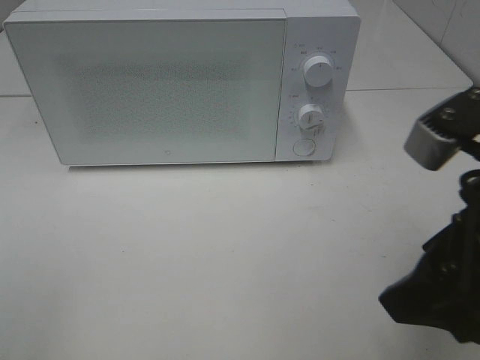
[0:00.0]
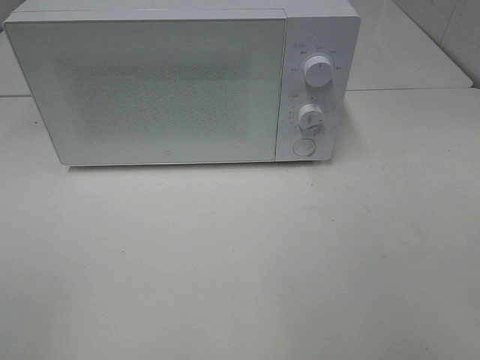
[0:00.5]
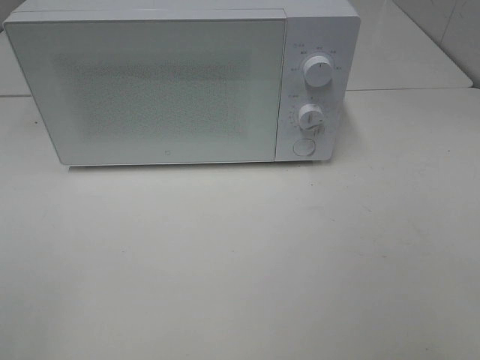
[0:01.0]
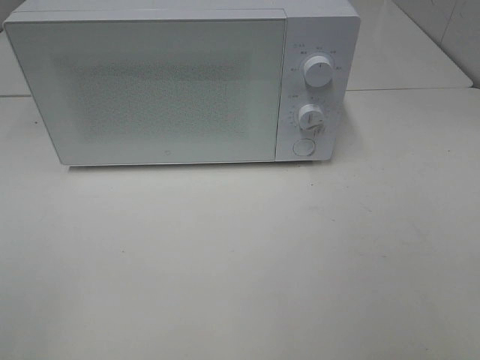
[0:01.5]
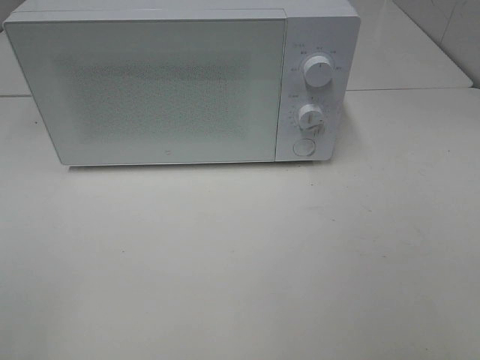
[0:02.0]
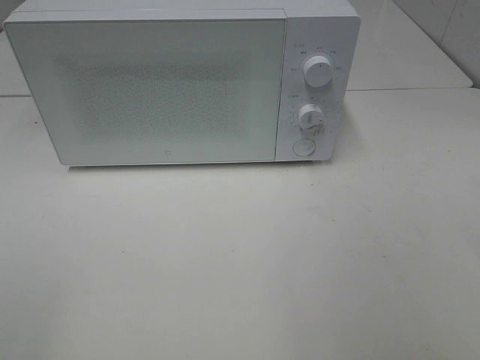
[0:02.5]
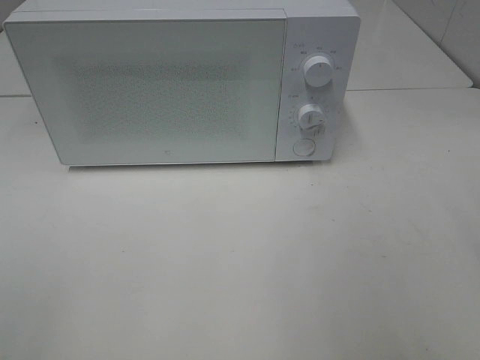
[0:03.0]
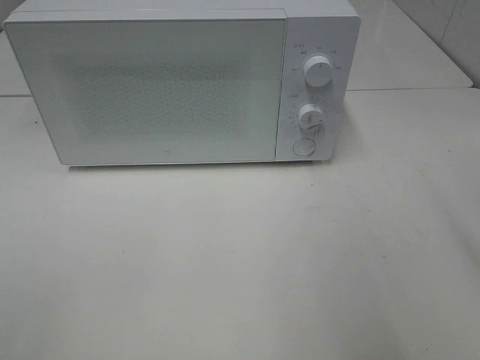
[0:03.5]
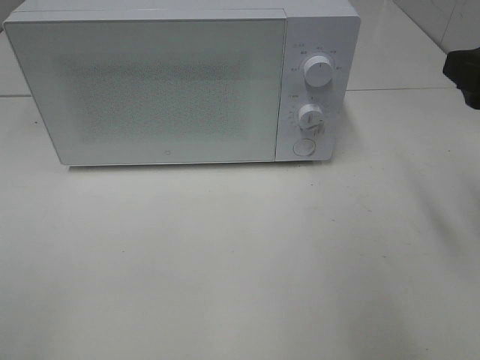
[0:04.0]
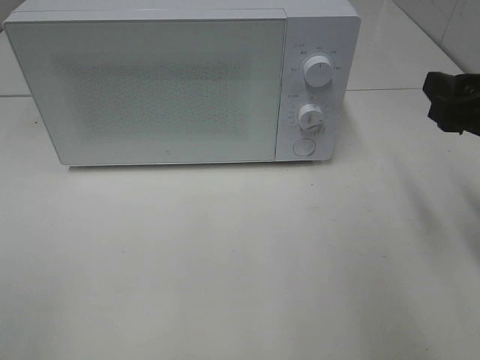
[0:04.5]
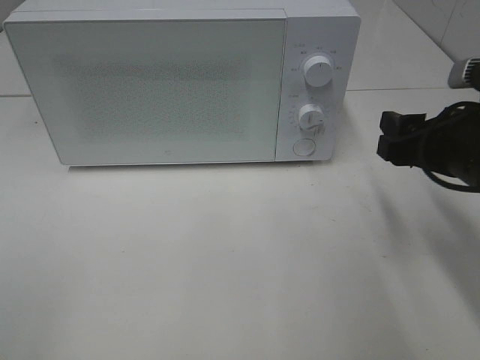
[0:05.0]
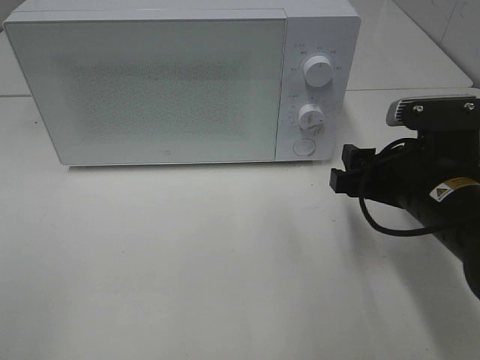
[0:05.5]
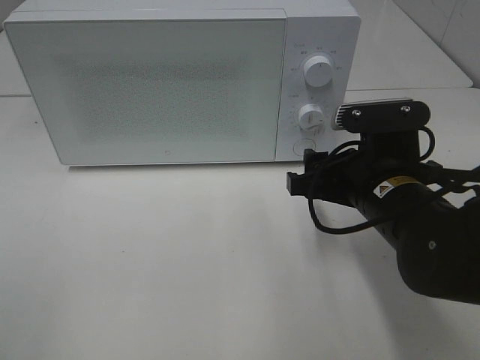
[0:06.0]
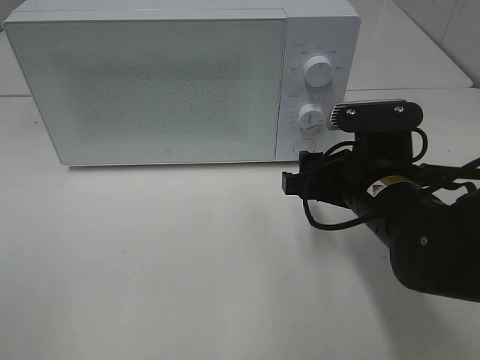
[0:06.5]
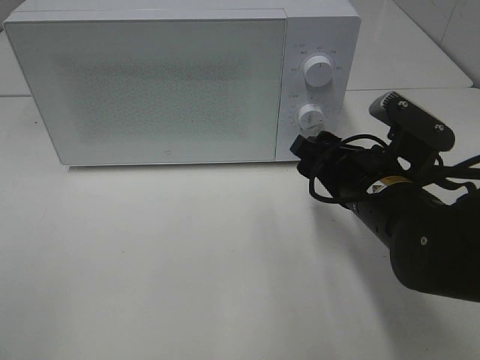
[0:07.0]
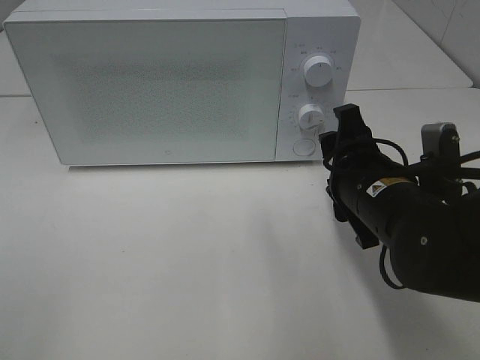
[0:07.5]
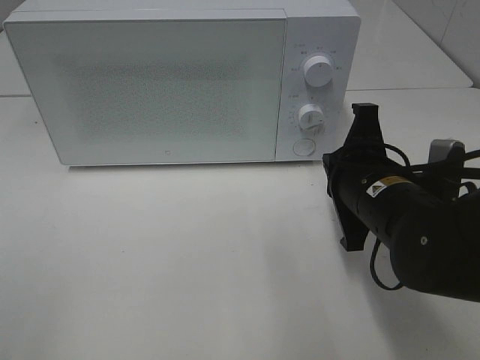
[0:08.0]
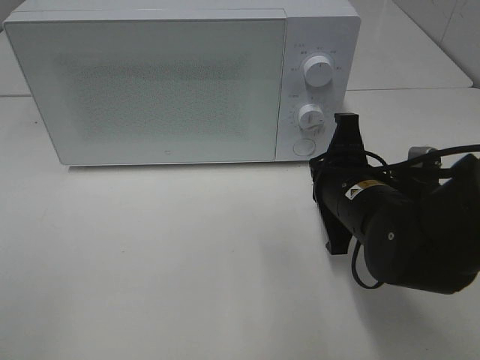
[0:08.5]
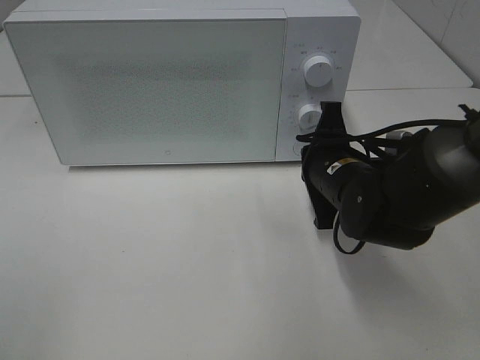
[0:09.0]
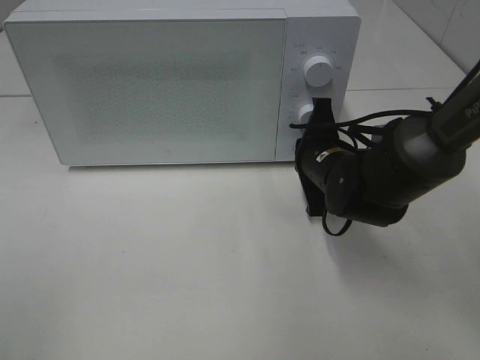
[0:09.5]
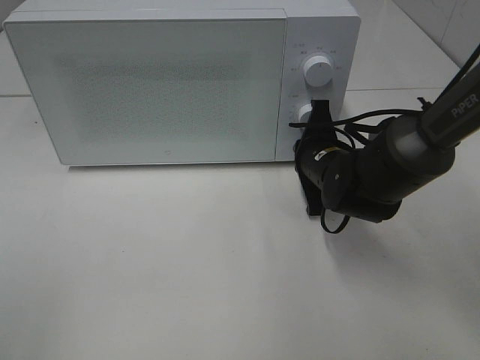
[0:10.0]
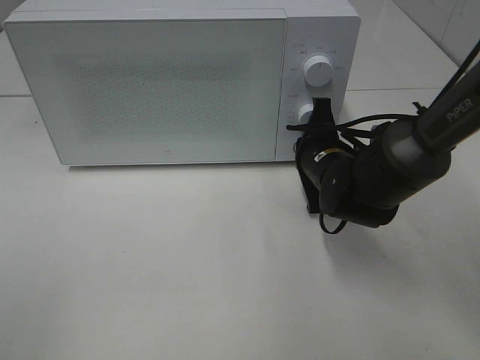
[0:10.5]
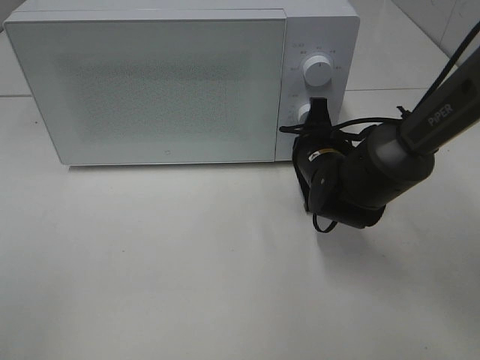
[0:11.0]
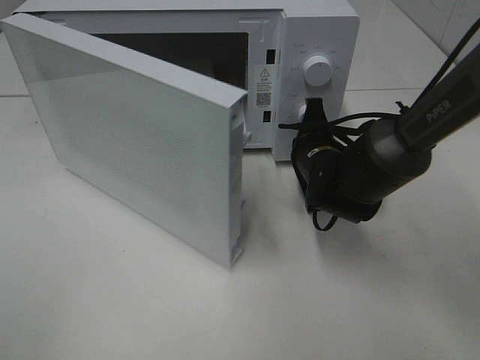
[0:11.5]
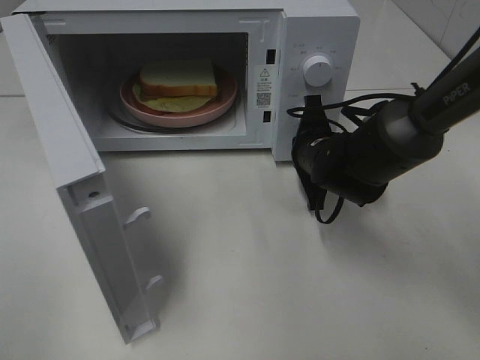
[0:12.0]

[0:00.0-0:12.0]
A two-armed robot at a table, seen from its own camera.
Task of the whole recording: Heat Sandwich.
0:00.0 to 0:02.0: The right gripper goes some 15 cm backward and to the right.
0:02.0 to 0:04.0: The right gripper shifts about 20 cm forward.
0:04.0 to 0:06.0: The right gripper heads downward and to the left, covering some 15 cm.
0:06.0 to 0:08.0: The right gripper closes.
0:08.0 to 0:10.0: The right gripper moves forward and downward, approximately 10 cm.

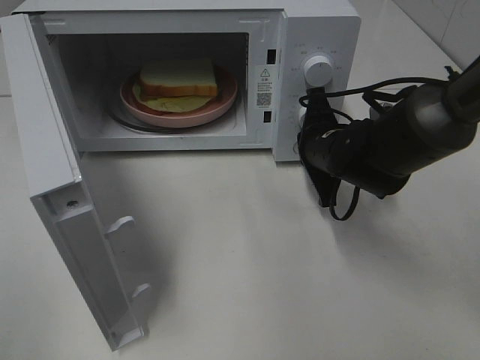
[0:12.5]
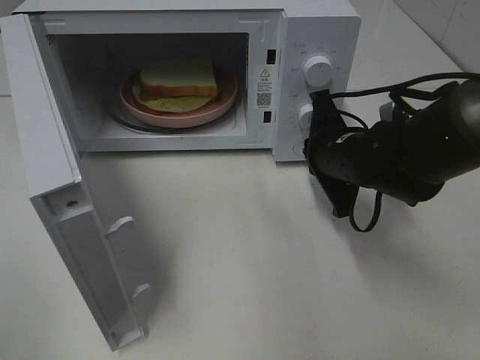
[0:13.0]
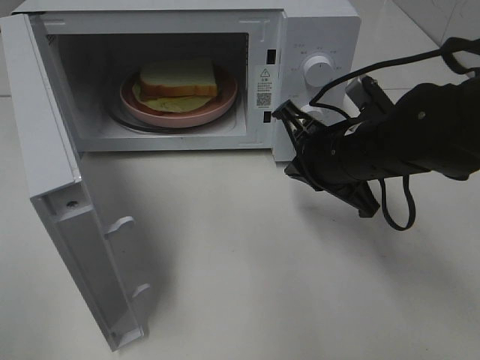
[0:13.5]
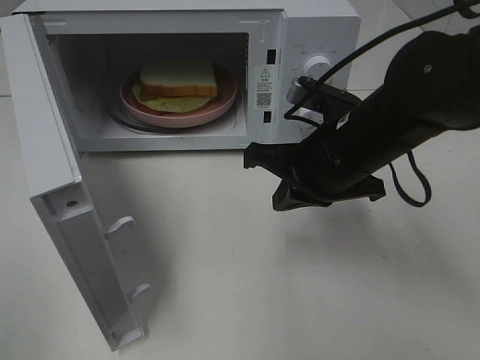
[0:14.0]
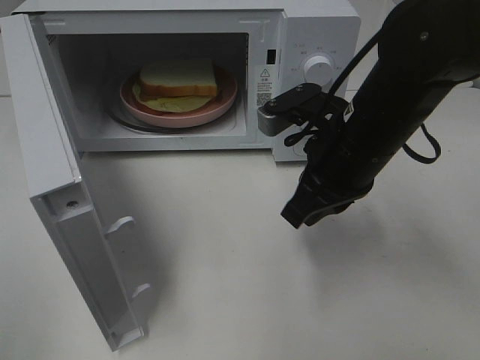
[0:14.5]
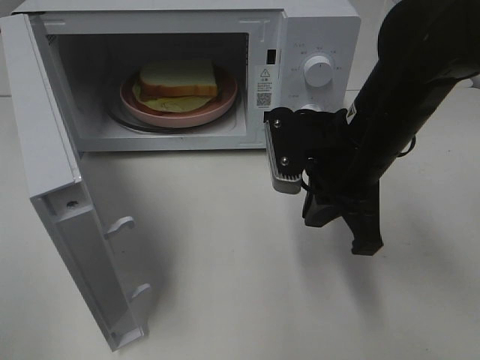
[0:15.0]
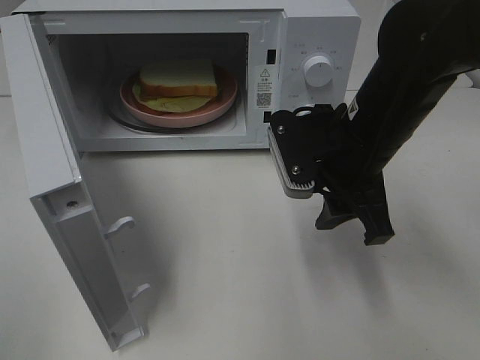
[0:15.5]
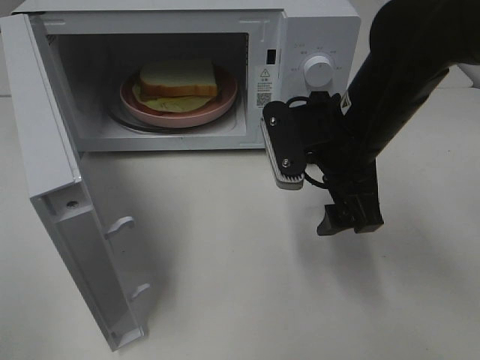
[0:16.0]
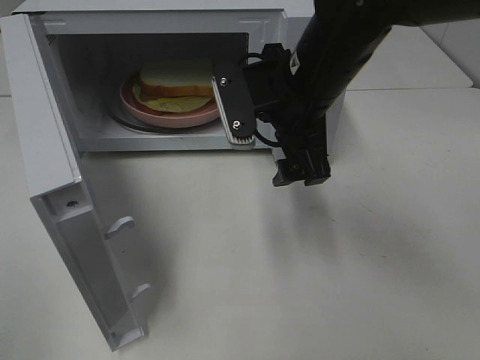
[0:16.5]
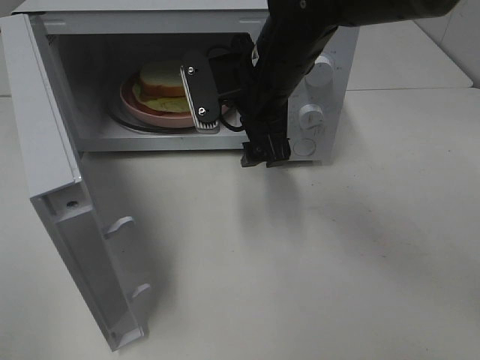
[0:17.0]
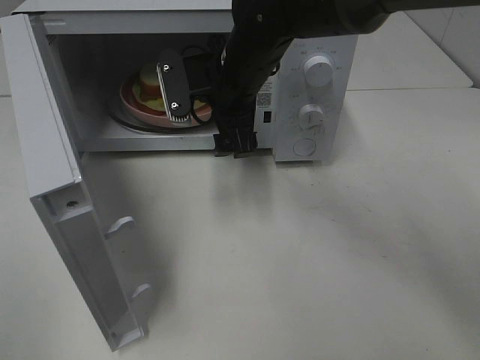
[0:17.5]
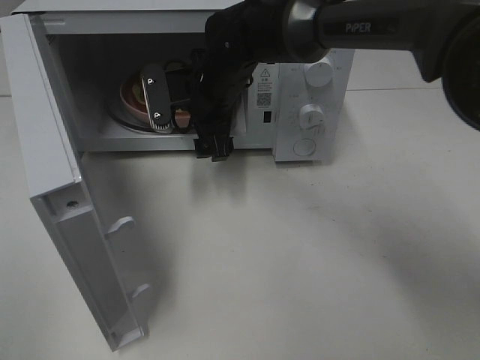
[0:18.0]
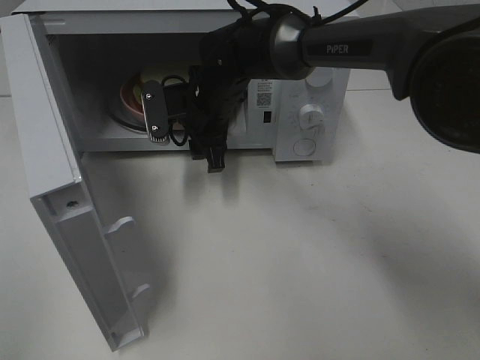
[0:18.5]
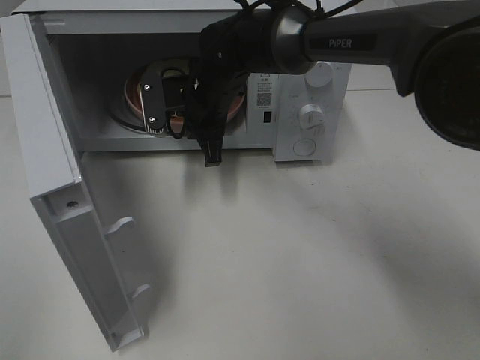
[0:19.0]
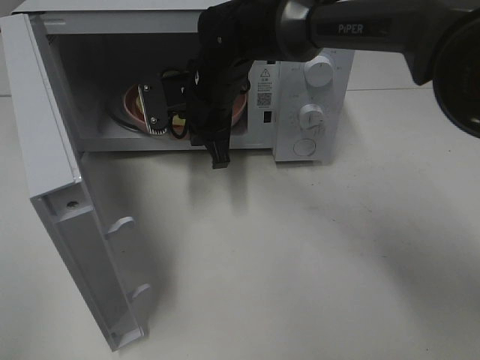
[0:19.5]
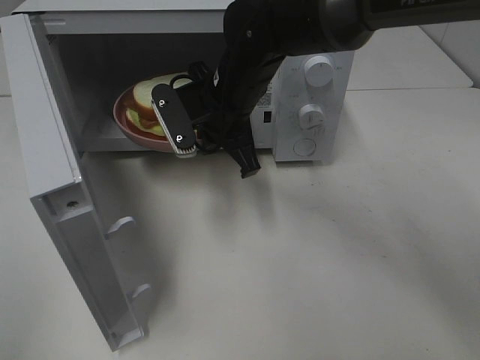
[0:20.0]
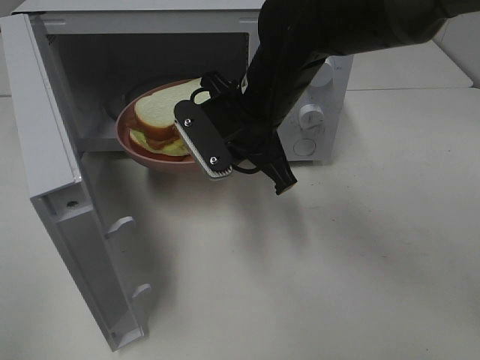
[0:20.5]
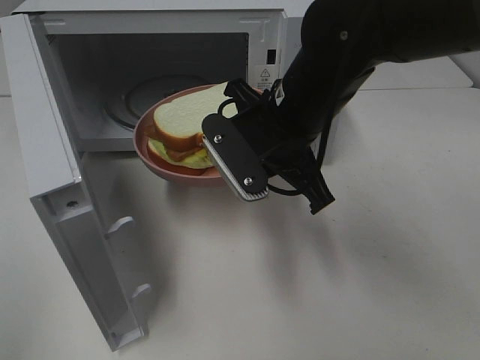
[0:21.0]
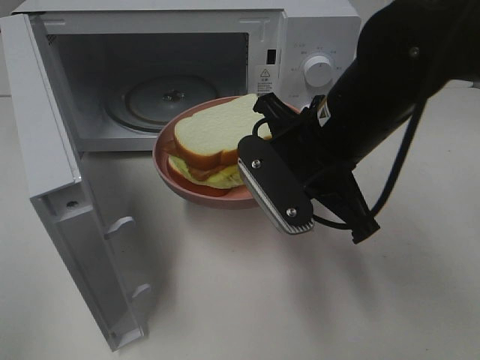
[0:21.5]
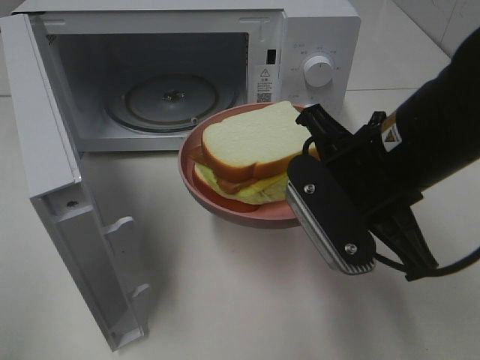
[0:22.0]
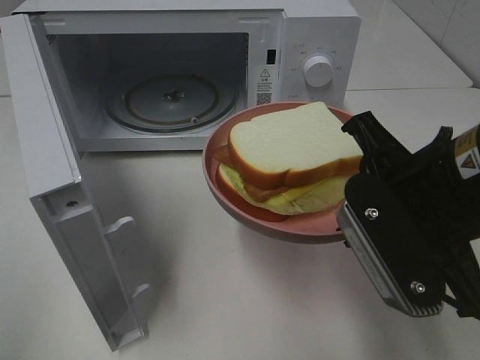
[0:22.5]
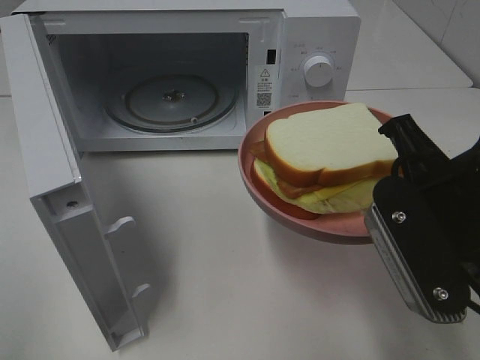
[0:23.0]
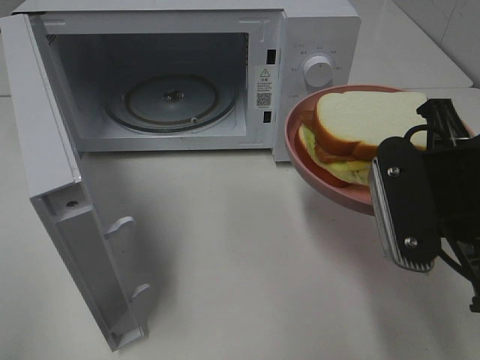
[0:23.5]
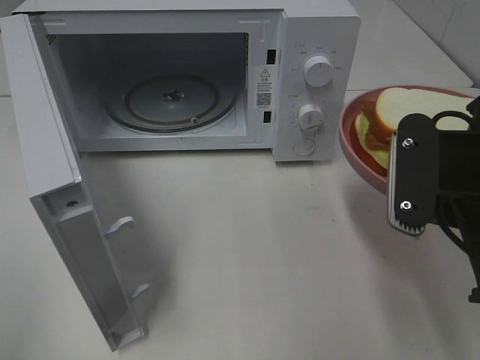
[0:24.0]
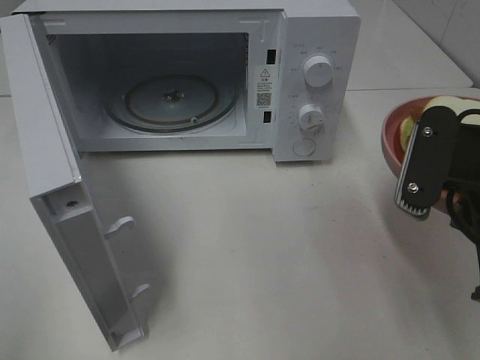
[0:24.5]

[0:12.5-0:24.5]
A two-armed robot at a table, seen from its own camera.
Task of the whole recording: Heat Sandwich.
Step, 0:13.0 to 0:18.5: Right hand: grab the plate with the sandwich.
0:12.5 to 0:14.5: The right gripper goes some 10 cm upward and backward.
0:14.5 to 0:16.5: The right gripper goes some 5 cm to the left, and opens its fingers.
0:16.5 to 0:18.5: The right gripper moves forward, to the left and downward, about 15 cm, and closes.
0:18.5 to 0:20.5: The right gripper shifts some 15 cm backward, to the right and upward, and closes its fingers.
0:20.5 to 0:22.5: The right gripper travels backward and to the right by about 20 cm.

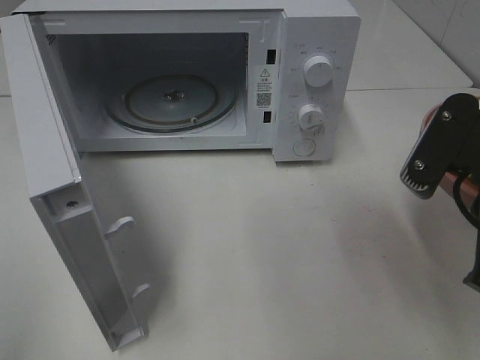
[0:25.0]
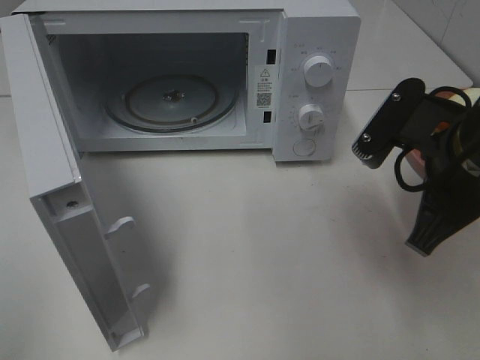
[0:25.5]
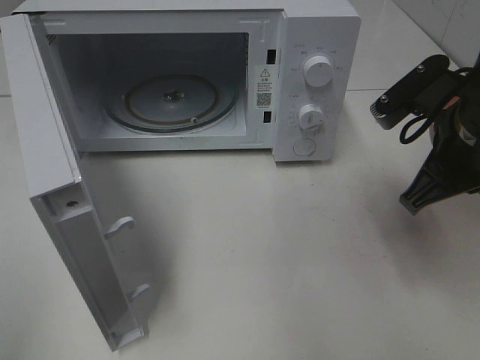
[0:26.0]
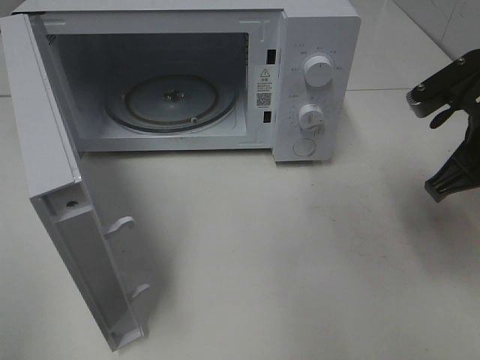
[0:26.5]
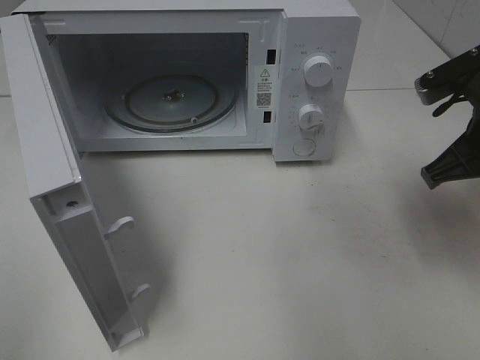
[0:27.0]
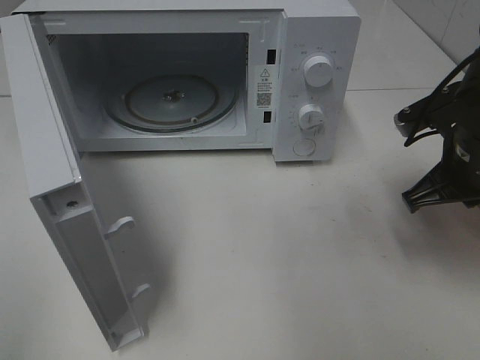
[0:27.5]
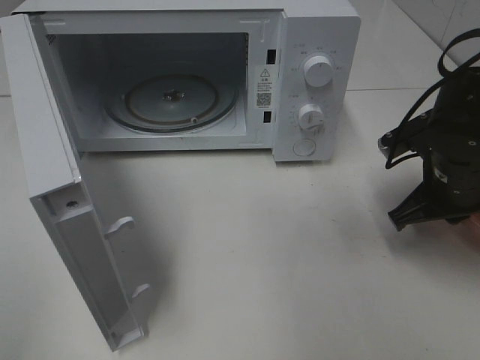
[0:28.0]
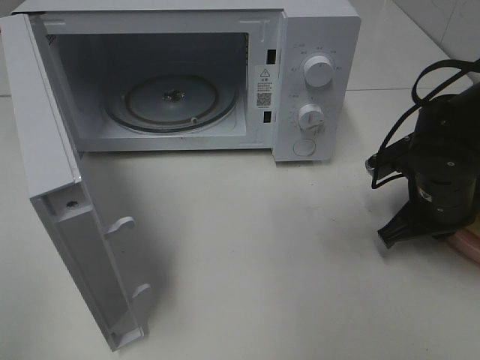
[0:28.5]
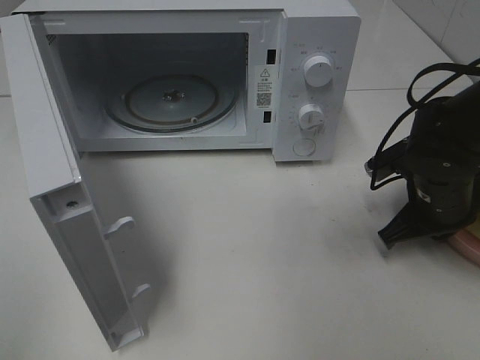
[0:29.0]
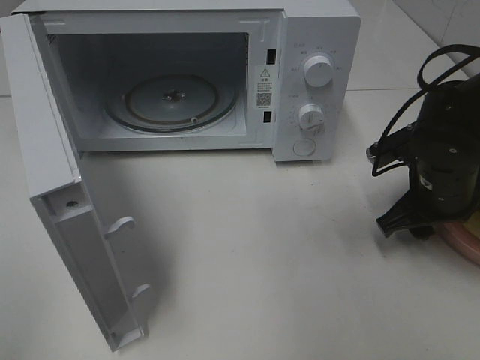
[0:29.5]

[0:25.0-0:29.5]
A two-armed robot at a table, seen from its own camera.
Task of the whole recording: Heat Sandwich.
0:25.0 to 0:27.0: The right gripper moves forward, approximately 10 cm.
0:27.0 to 0:29.5: The right gripper travels downward by roughly 10 cm, and opens its fingers.
